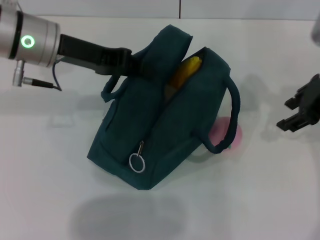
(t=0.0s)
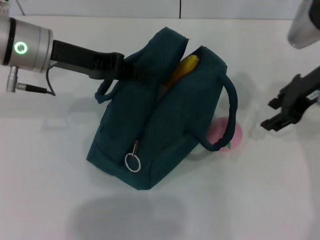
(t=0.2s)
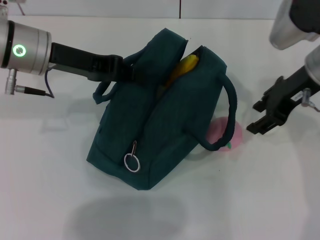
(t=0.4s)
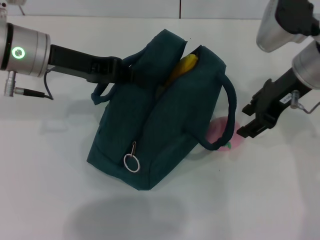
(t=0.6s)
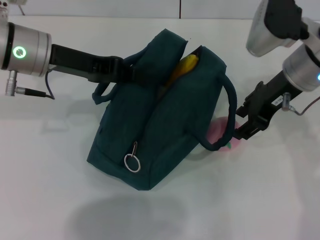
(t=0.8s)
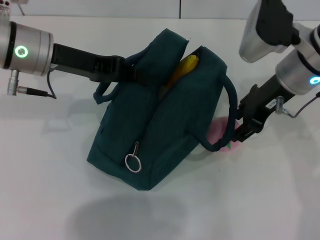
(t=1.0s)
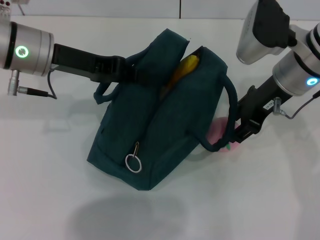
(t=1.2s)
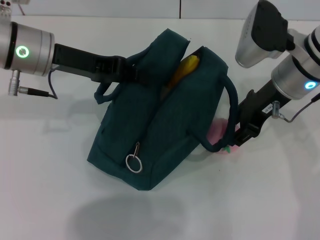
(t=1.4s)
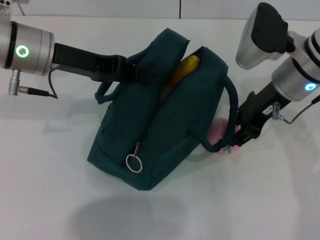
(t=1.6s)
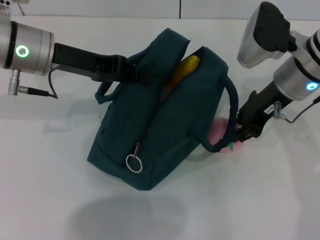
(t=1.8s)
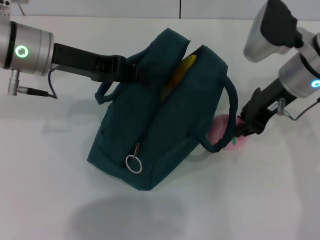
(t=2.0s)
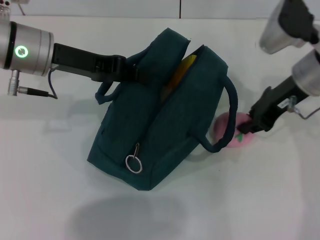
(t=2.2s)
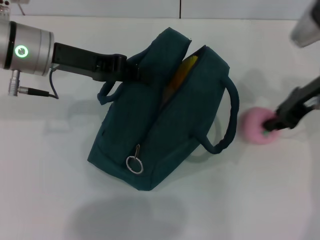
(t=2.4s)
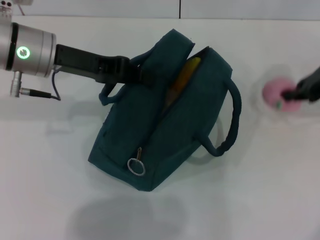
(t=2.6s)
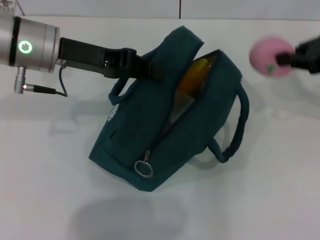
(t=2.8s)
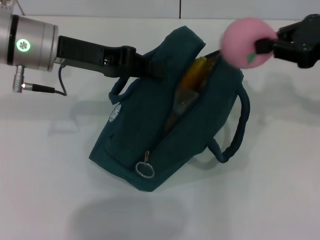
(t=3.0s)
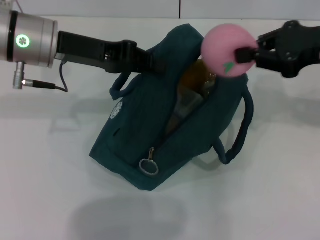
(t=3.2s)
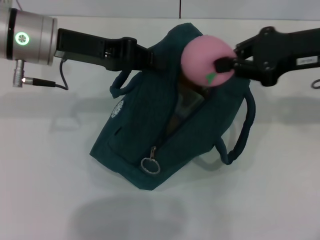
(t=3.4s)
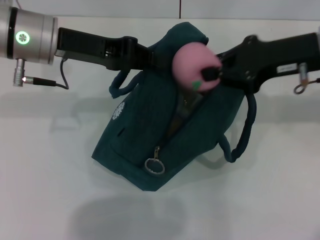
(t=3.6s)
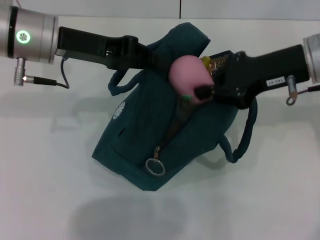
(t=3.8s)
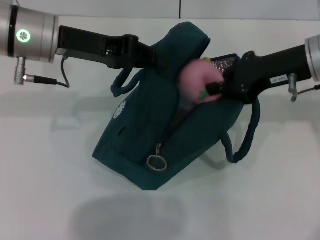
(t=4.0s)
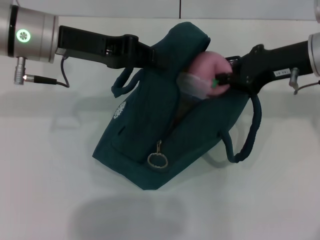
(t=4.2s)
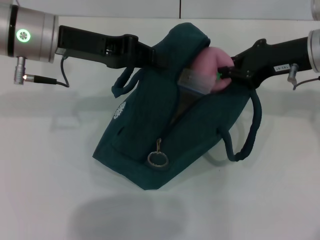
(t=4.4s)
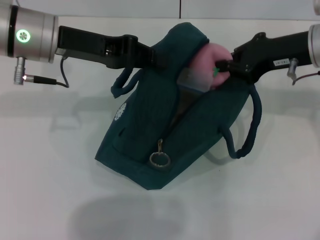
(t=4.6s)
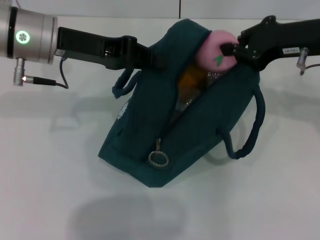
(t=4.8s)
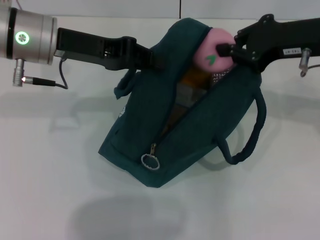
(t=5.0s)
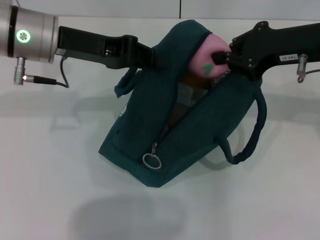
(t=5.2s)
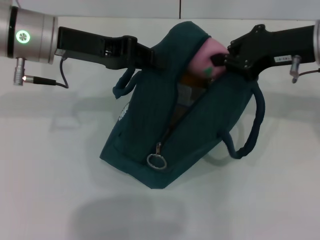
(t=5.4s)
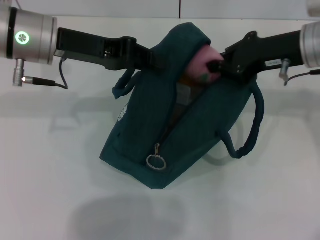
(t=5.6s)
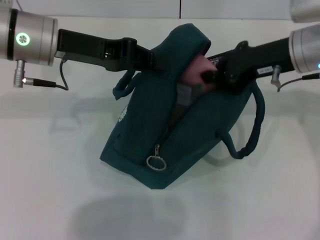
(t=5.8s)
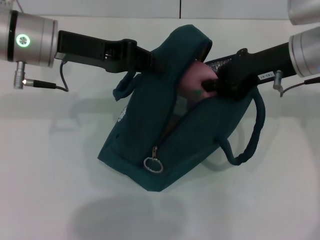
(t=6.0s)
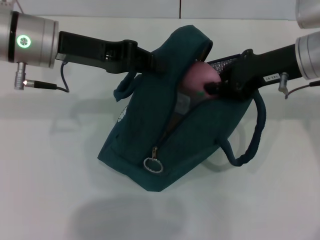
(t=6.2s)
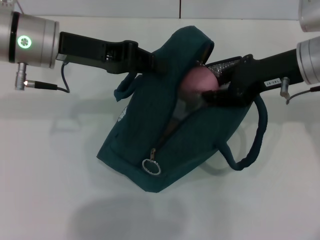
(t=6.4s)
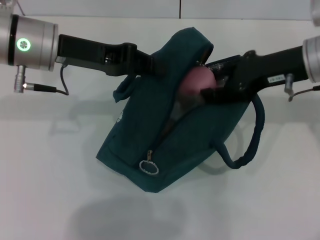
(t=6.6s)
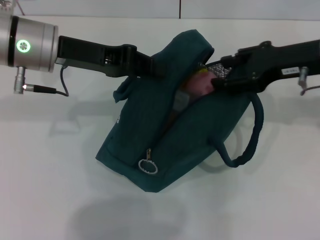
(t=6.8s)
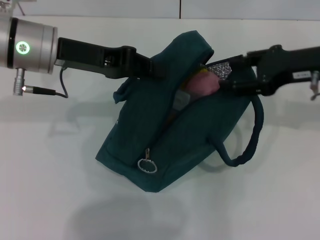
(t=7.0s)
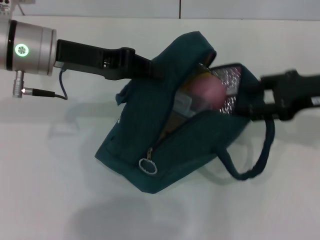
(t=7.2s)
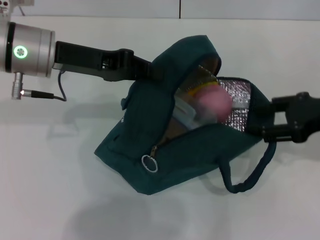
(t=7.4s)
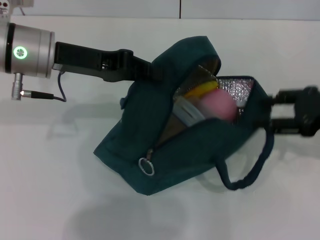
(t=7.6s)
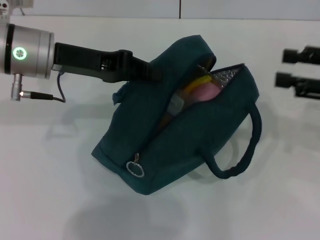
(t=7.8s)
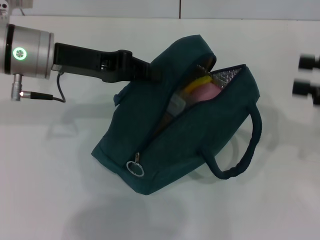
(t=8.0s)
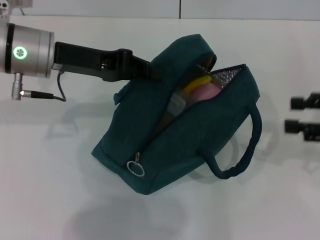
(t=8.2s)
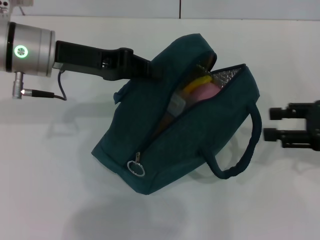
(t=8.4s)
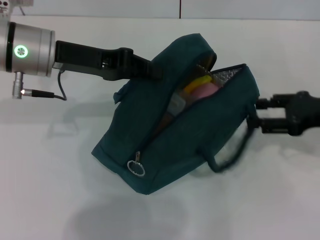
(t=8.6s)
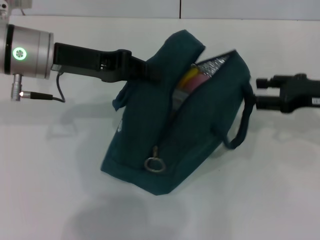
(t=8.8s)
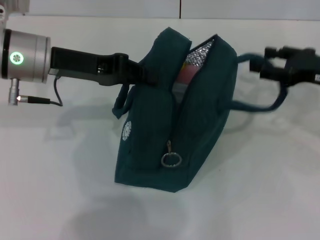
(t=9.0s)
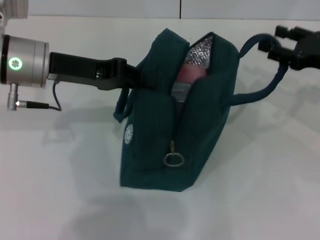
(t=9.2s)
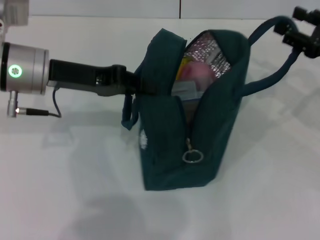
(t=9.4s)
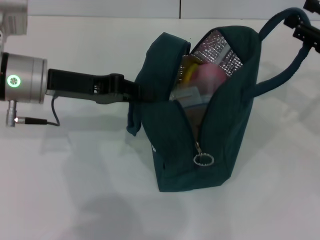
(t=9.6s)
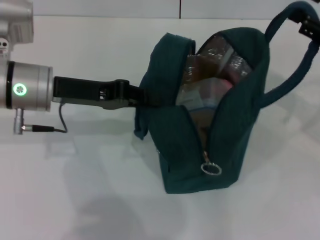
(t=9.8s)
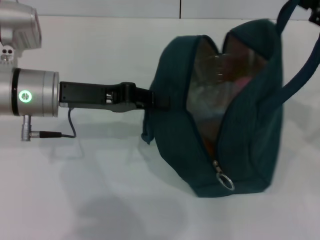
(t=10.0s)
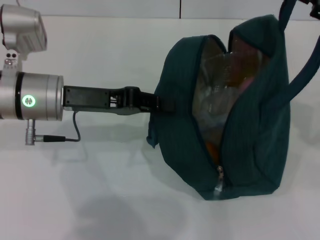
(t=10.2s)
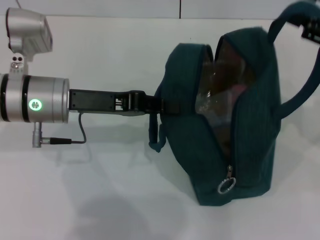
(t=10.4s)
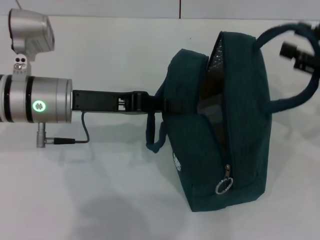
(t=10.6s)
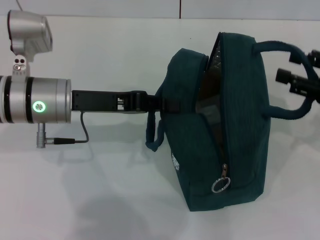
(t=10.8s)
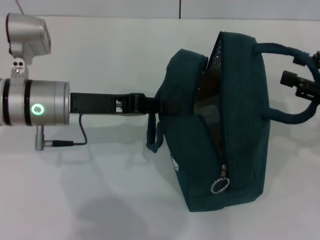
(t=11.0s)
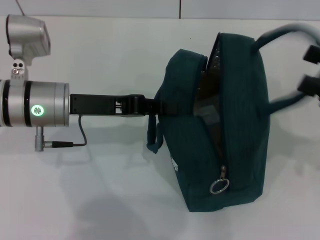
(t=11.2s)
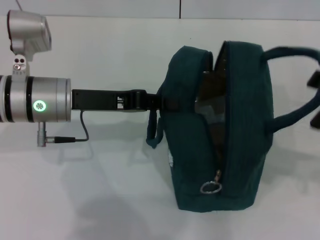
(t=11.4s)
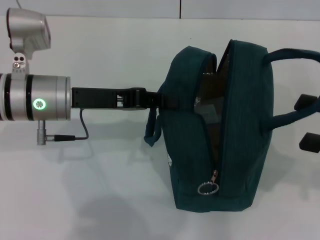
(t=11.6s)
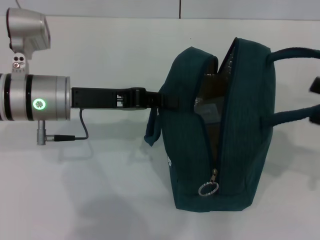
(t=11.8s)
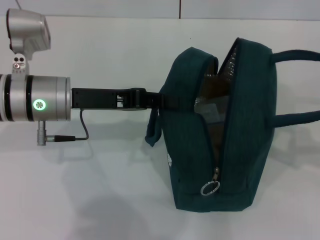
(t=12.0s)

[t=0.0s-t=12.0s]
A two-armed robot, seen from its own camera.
Step, t=7.0s to t=11.2s: Hold the lunch bag with your right hand.
t=0.0s to t=1.6s: The right gripper is displaced to the left by about 10 cm.
t=1.6s to t=3.0s: The right gripper heads to the right and upward, covering approximately 15 cm, and closes up.
t=3.0s to t=4.4s: The right gripper shifts roughly 5 cm to the left.
t=4.4s to t=6.0s: There are only small adjustments of the grippers.
t=6.0s to t=7.6s: The right gripper is displaced to the right and backward by approximately 15 cm, and opens.
t=7.6s to t=9.0s: The right gripper heads forward, covering some 5 cm.
t=9.0s to t=10.4s: The right gripper shifts some 5 cm upward; the left gripper ends up approximately 5 cm from where it was.
t=10.4s to t=12.0s: The right gripper shifts roughly 10 cm backward, to the right and downward.

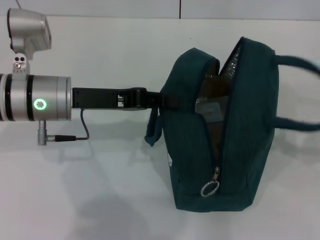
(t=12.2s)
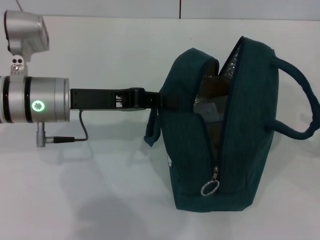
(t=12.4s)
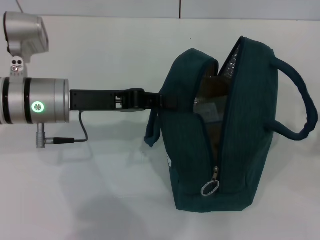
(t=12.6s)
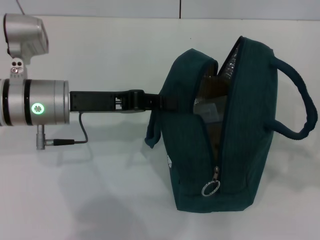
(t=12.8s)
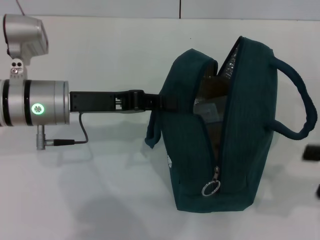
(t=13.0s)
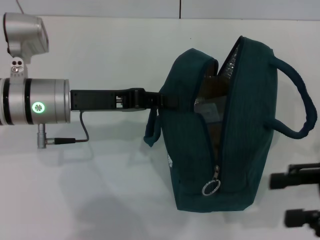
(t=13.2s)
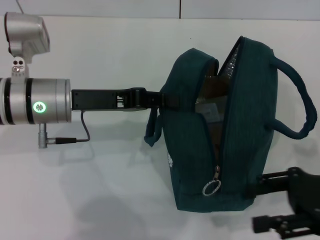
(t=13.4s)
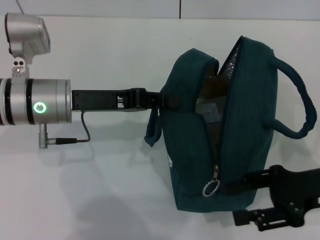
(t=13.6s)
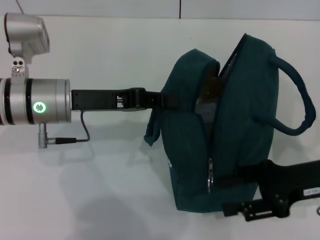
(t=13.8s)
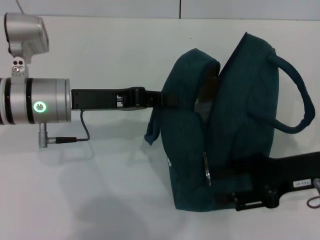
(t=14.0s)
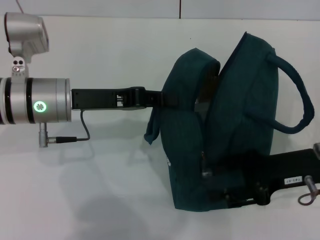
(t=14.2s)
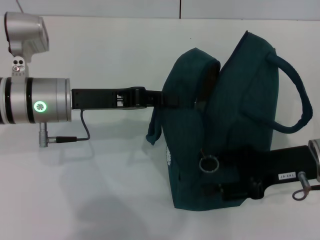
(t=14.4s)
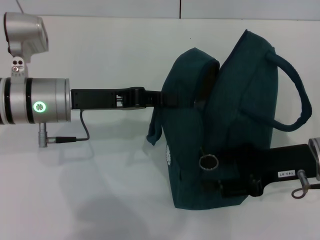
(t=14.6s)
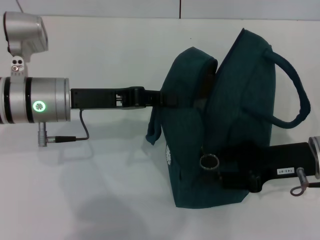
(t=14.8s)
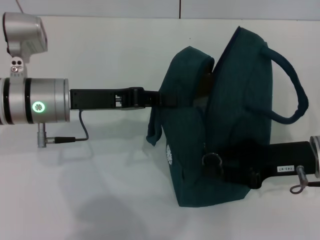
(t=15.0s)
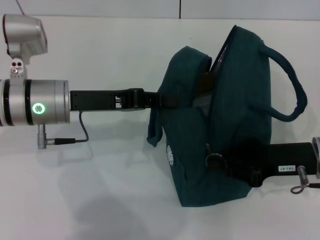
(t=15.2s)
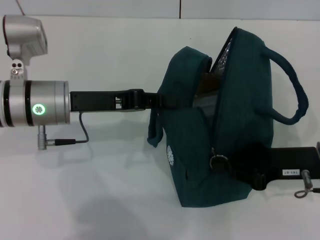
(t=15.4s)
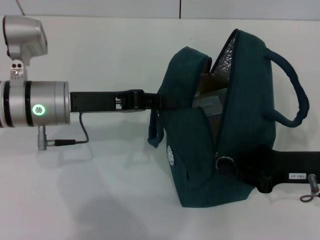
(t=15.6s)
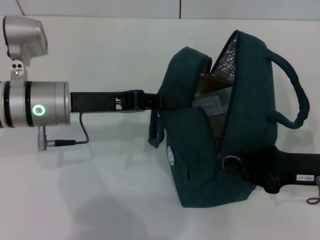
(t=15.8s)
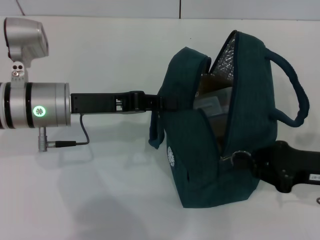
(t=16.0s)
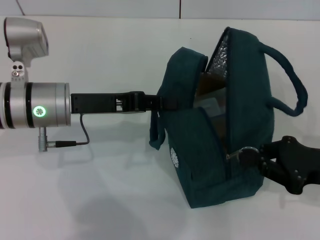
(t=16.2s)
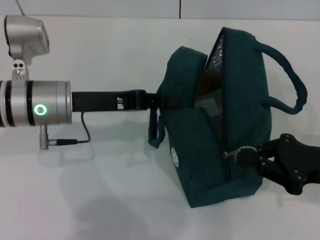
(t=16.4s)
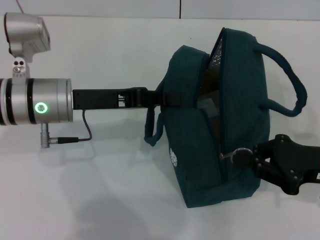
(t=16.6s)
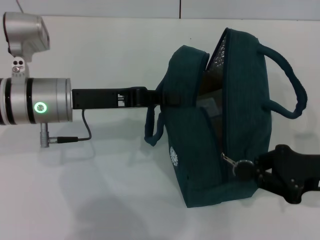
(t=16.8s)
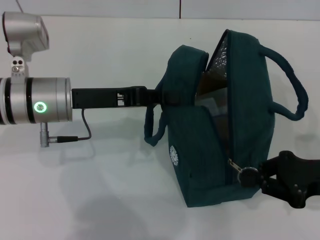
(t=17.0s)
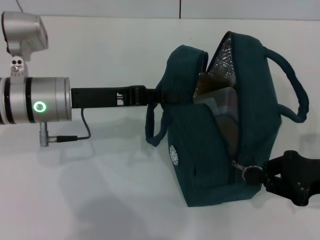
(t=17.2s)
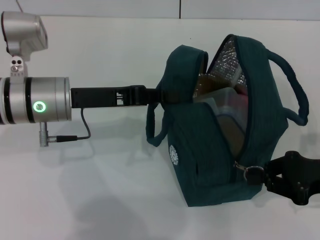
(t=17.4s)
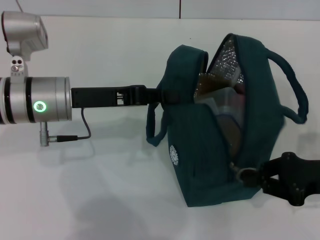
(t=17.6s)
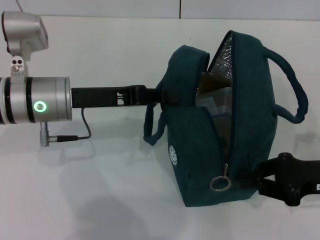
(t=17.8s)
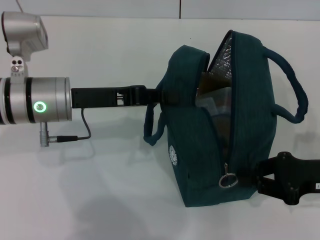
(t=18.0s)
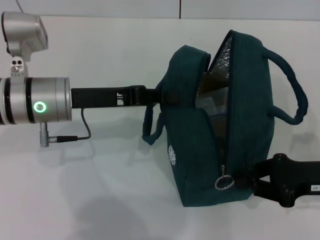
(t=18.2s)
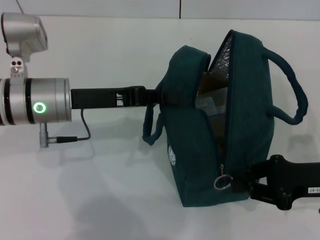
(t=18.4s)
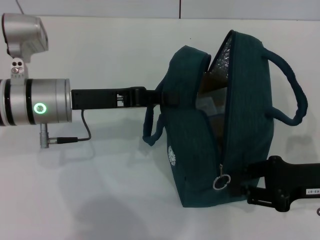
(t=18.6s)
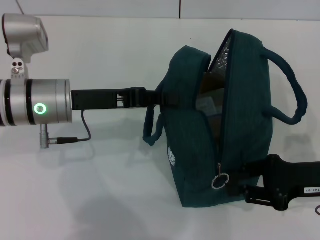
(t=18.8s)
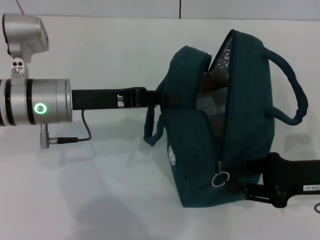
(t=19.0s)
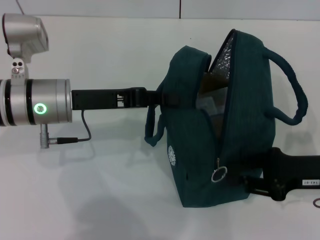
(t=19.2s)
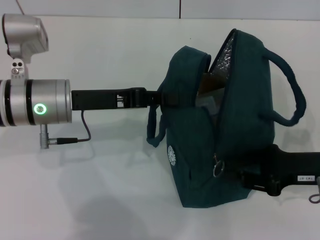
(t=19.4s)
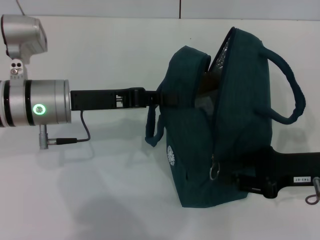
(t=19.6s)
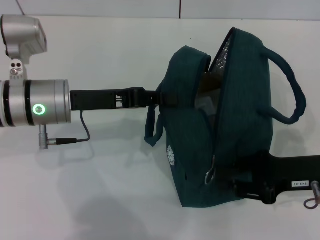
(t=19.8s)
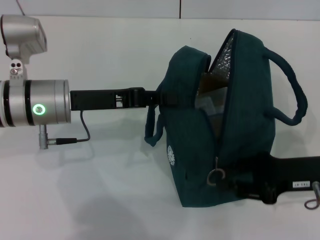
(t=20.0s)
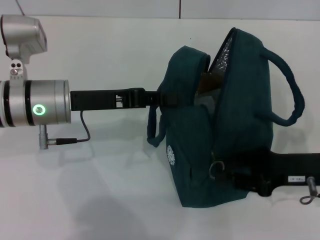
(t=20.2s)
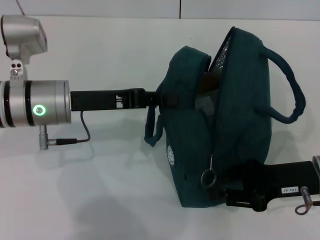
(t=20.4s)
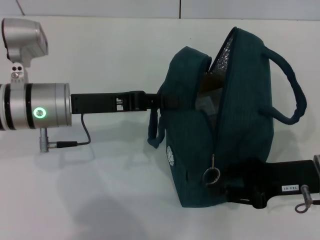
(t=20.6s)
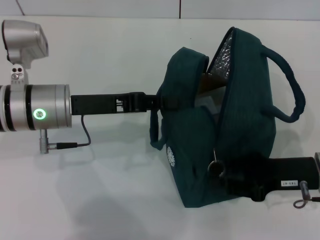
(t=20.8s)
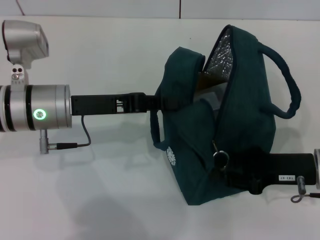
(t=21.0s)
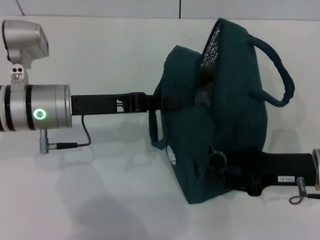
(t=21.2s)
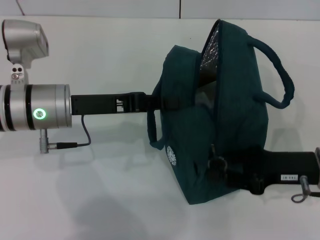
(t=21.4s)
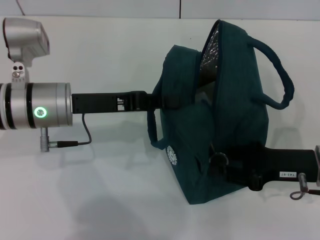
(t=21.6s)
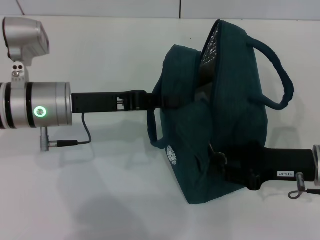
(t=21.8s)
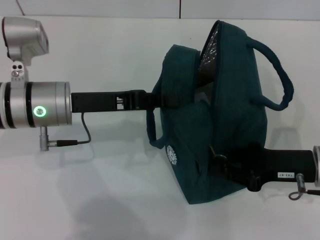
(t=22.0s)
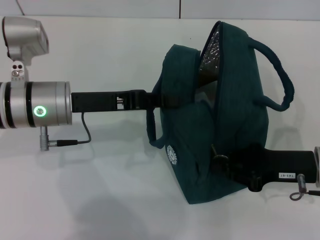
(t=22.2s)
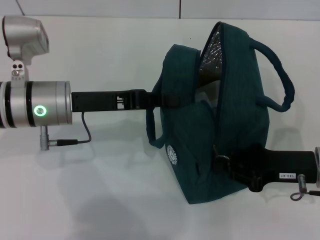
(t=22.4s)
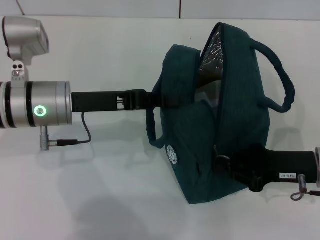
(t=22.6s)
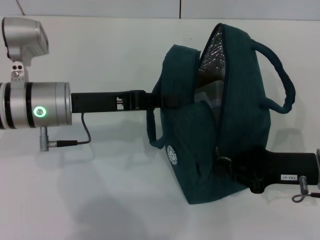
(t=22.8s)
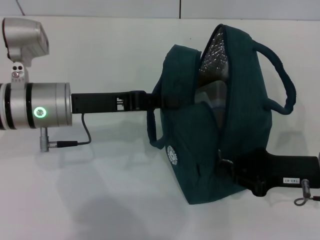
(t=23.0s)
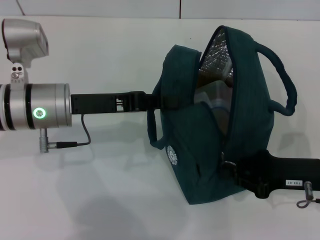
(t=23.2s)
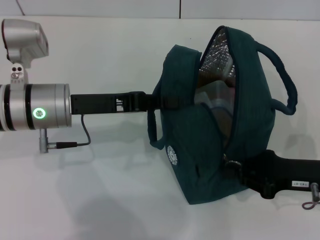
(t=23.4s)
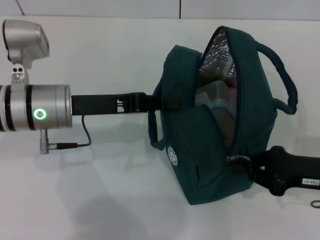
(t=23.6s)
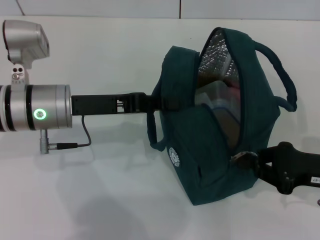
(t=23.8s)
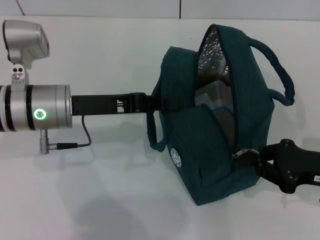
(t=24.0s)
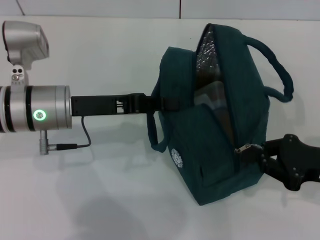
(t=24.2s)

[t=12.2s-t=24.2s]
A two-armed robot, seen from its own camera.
t=12.2s to t=13.8s: The right gripper moves to the left, approximately 15 cm.
t=13.8s to t=15.2s: The right gripper closes its fingers.
t=15.2s to t=21.2s: There are only small adjustments of the grippers.
t=21.2s to t=22.6s: Both grippers stay put.
t=22.6s to t=24.2s: The grippers move only a little.
